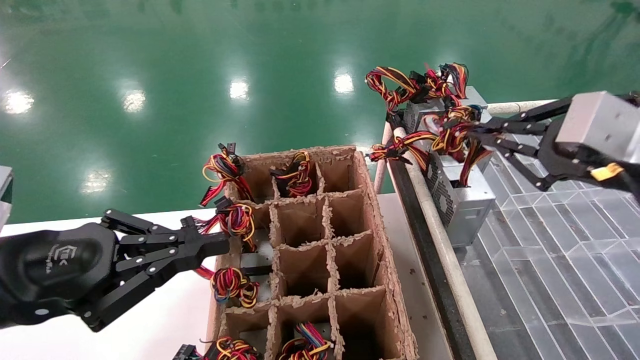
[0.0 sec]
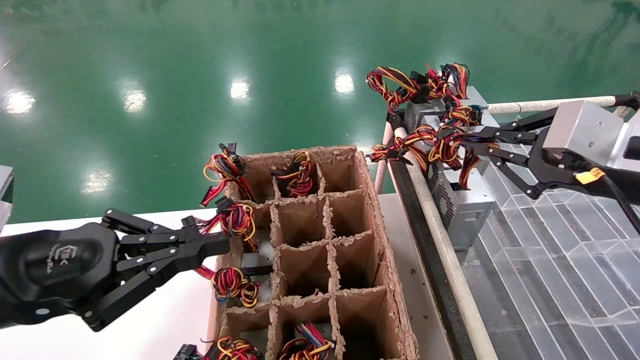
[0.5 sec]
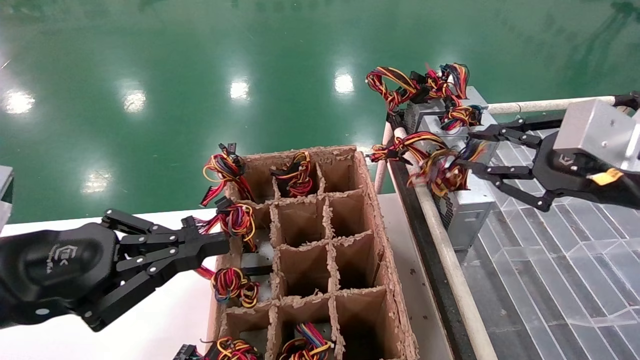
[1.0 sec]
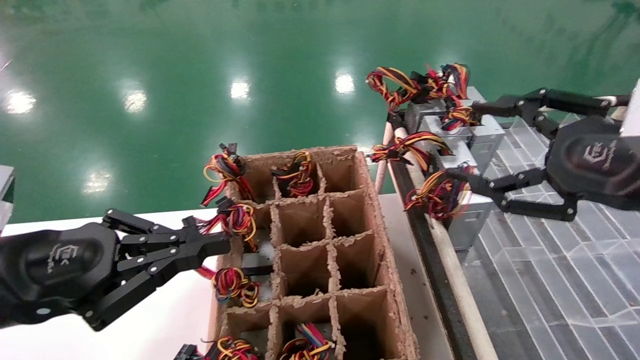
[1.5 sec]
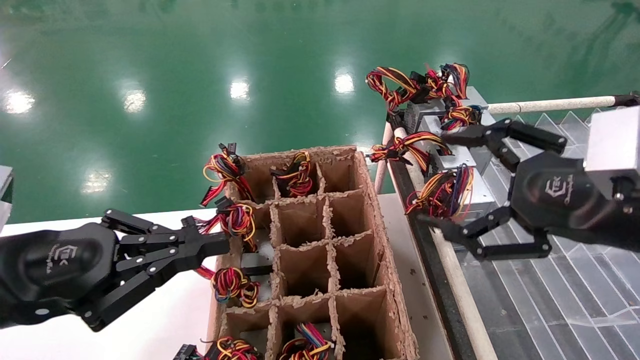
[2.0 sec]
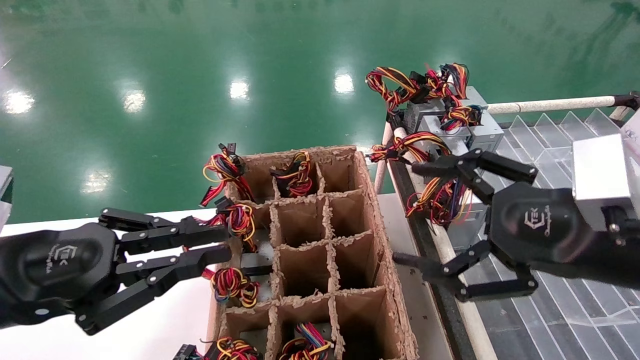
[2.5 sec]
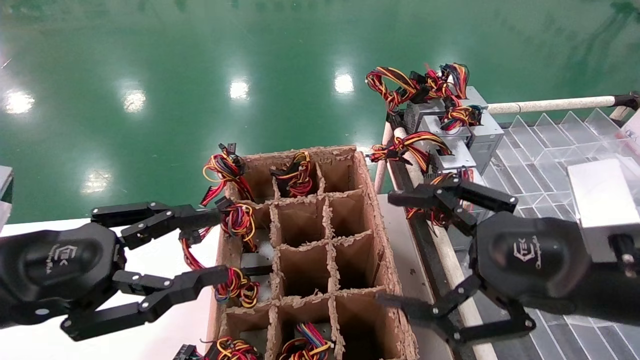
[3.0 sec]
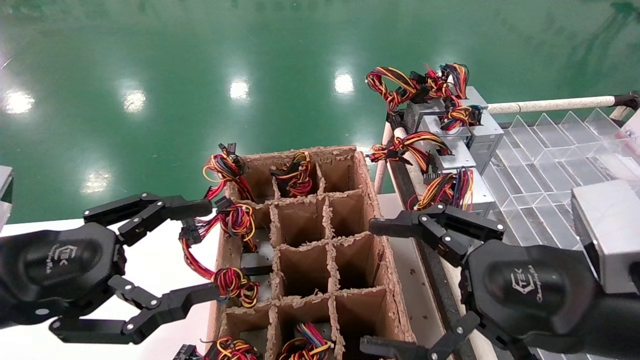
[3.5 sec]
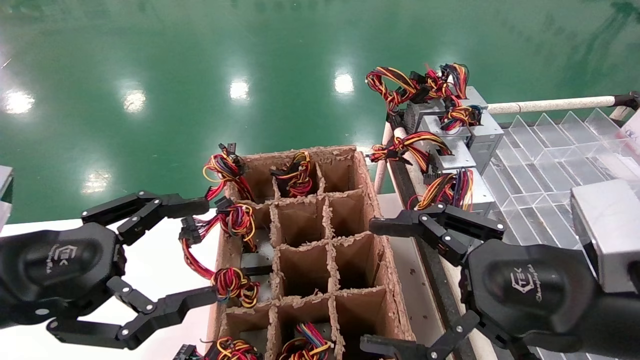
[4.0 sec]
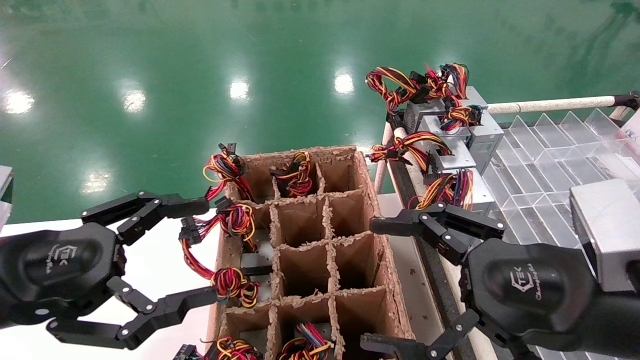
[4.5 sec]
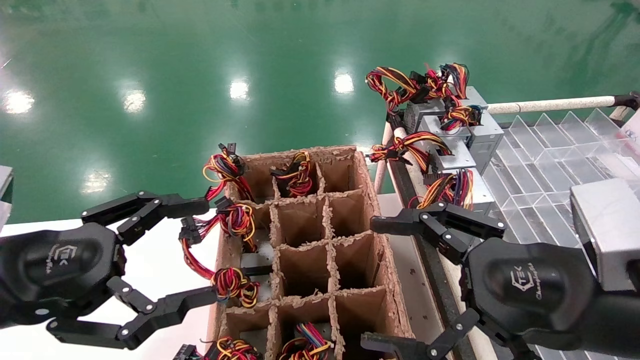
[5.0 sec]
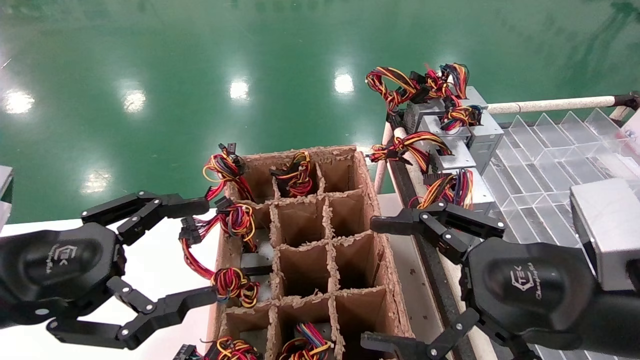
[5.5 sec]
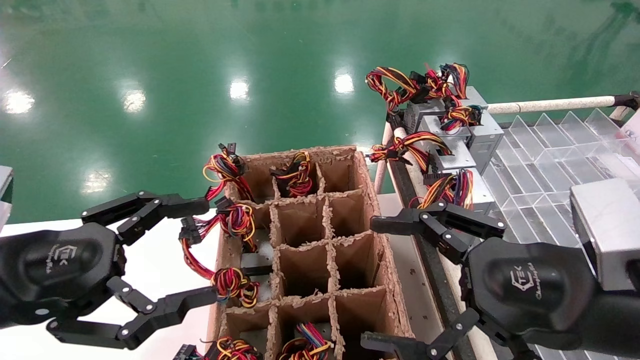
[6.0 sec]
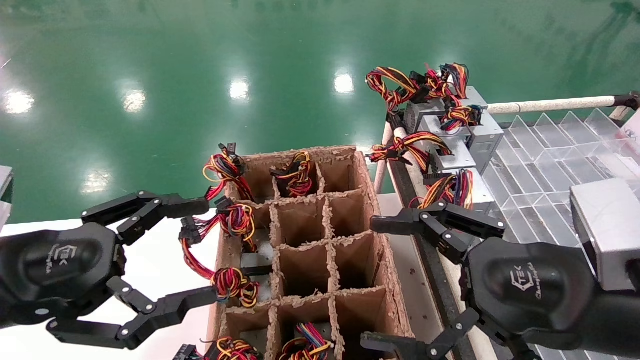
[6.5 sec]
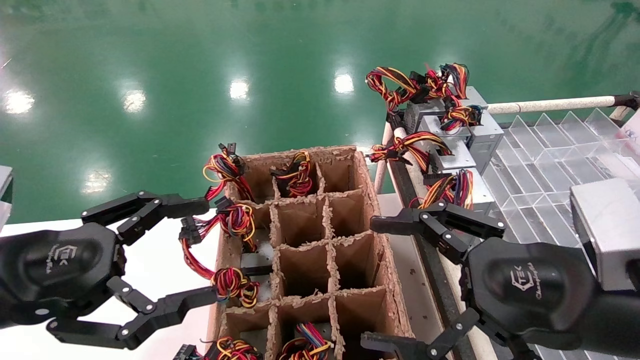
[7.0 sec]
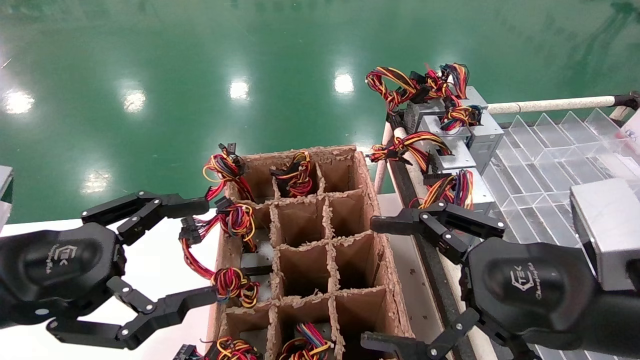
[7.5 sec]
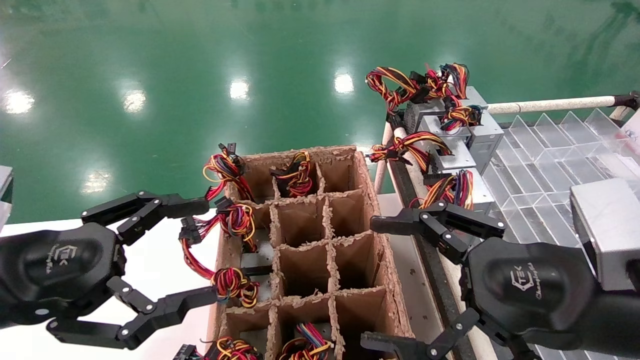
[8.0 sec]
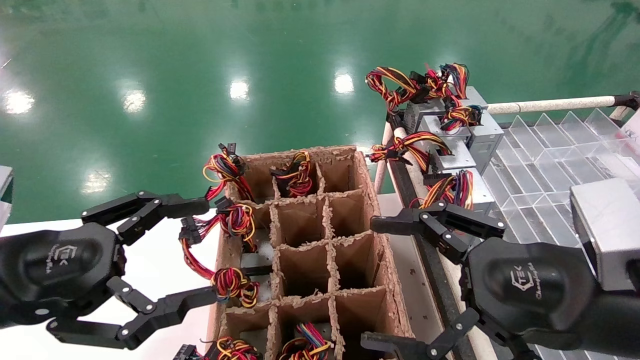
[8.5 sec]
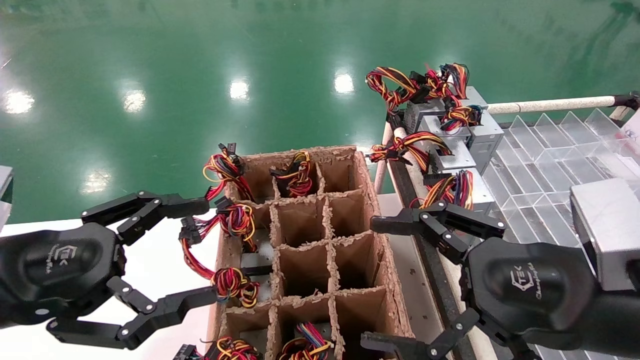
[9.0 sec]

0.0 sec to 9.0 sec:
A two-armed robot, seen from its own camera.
0.0 sec to 2.0 sec: The right gripper changes place by approximately 5 cm, and opens up.
2.0 sec to 4.5 sec: The right gripper moves downward, about 5 cm; the left gripper opens up.
4.5 sec to 9.0 sec: Neither gripper changes place.

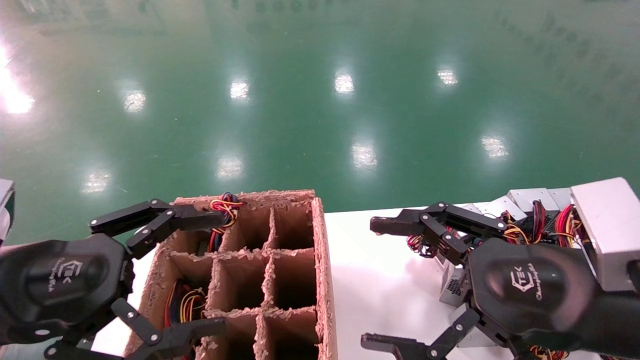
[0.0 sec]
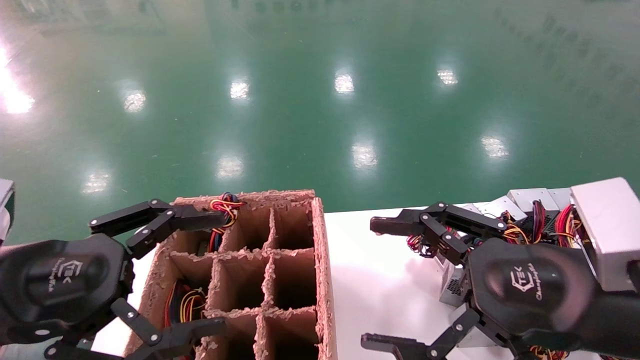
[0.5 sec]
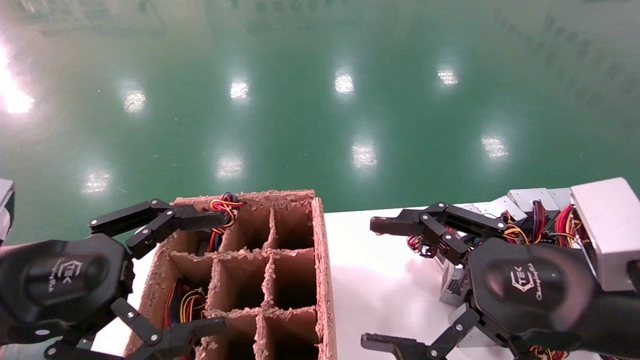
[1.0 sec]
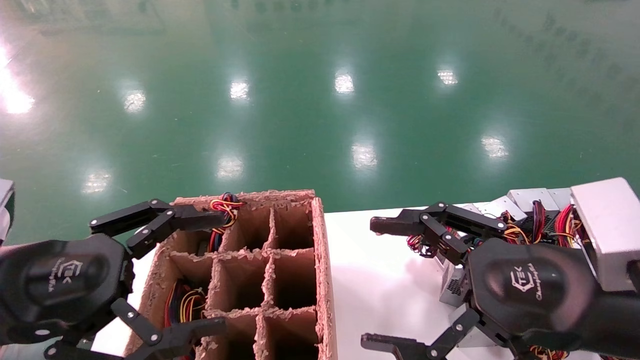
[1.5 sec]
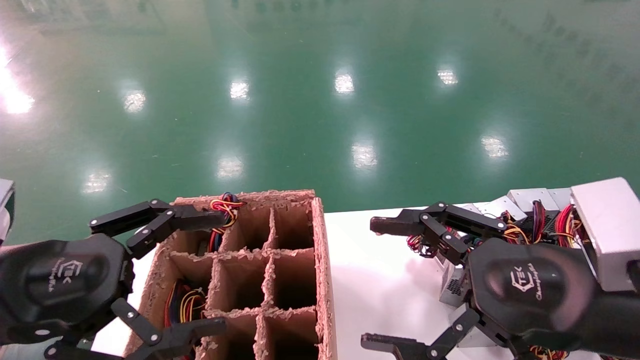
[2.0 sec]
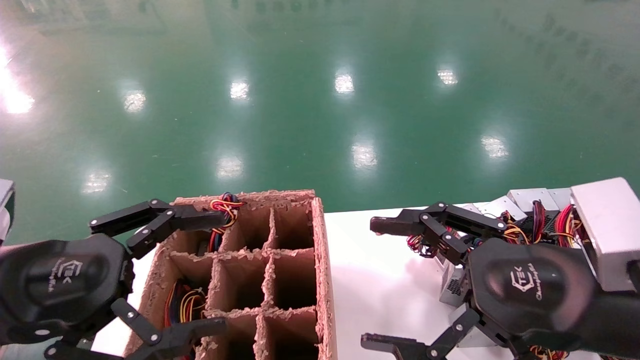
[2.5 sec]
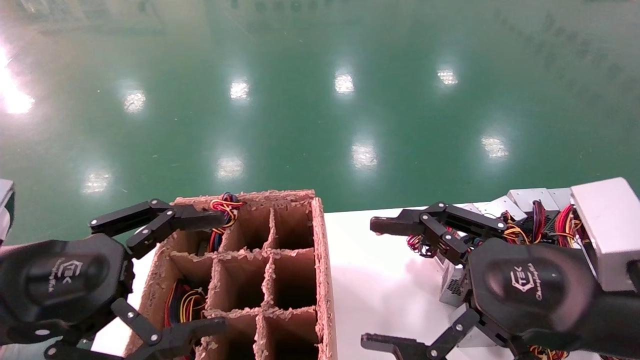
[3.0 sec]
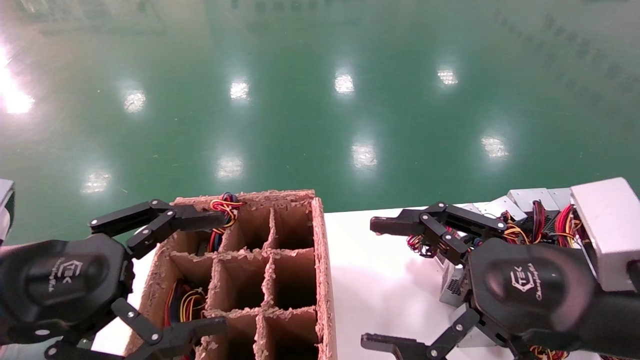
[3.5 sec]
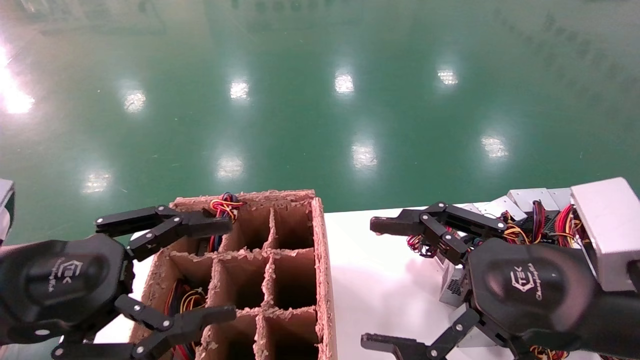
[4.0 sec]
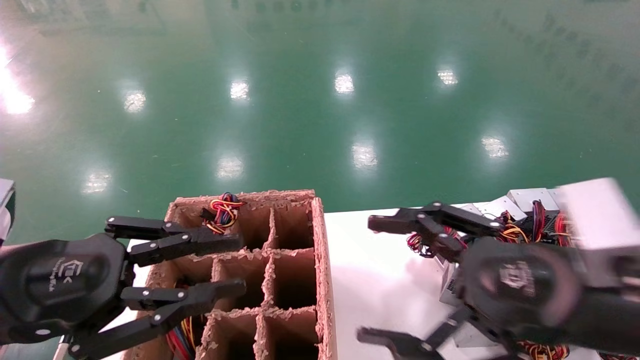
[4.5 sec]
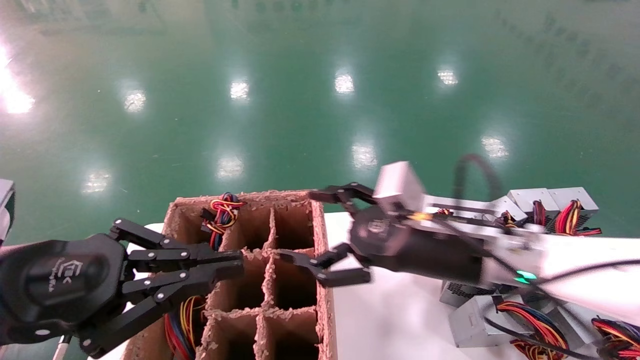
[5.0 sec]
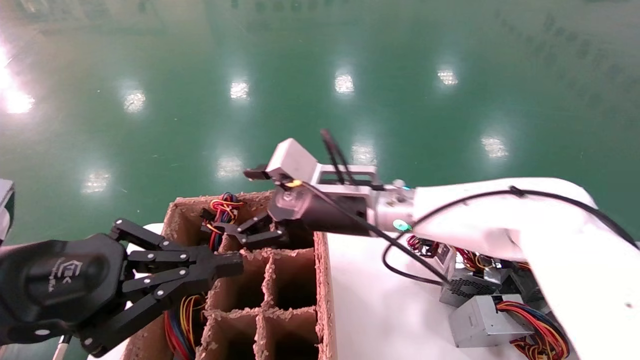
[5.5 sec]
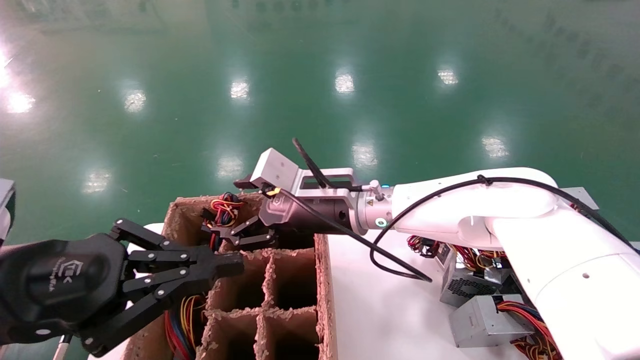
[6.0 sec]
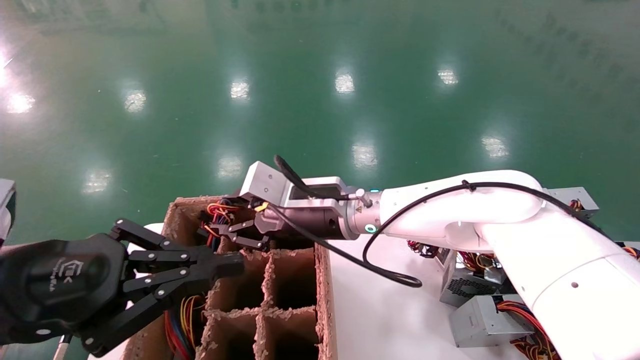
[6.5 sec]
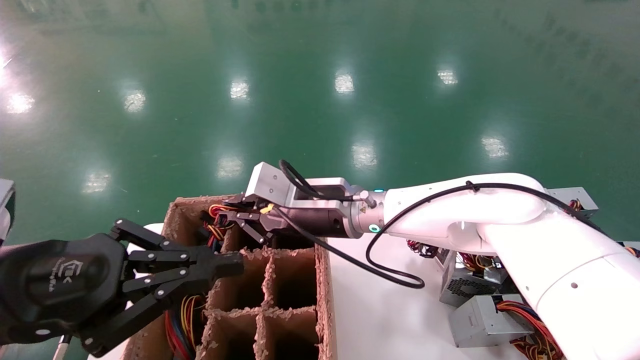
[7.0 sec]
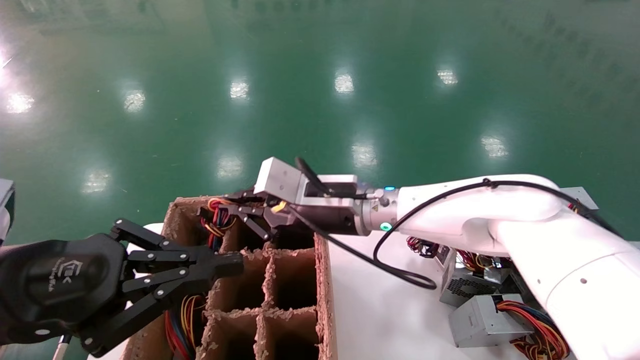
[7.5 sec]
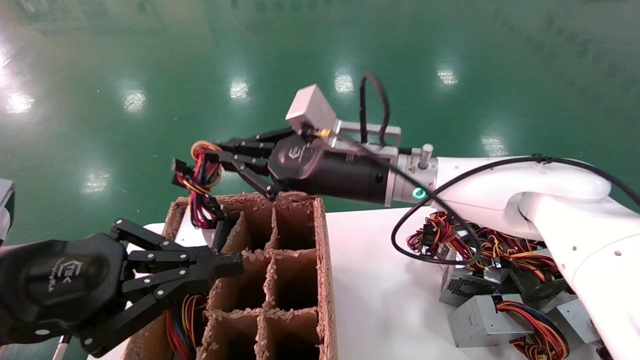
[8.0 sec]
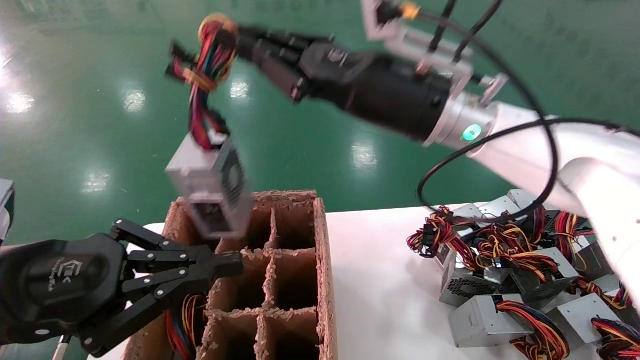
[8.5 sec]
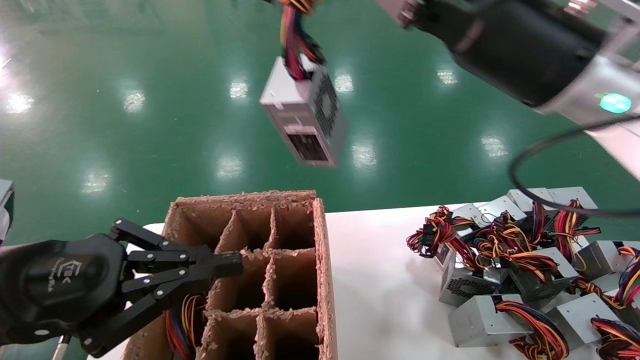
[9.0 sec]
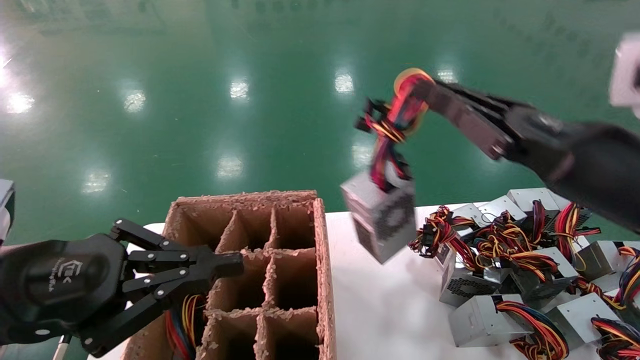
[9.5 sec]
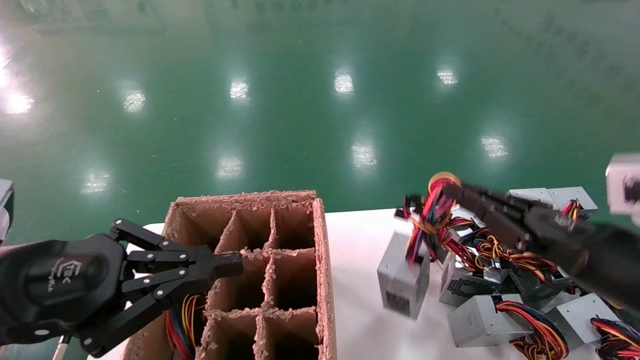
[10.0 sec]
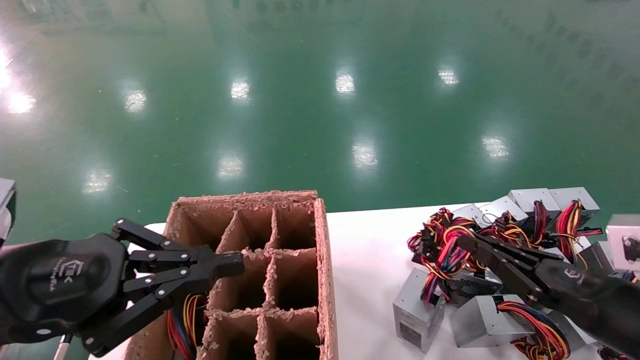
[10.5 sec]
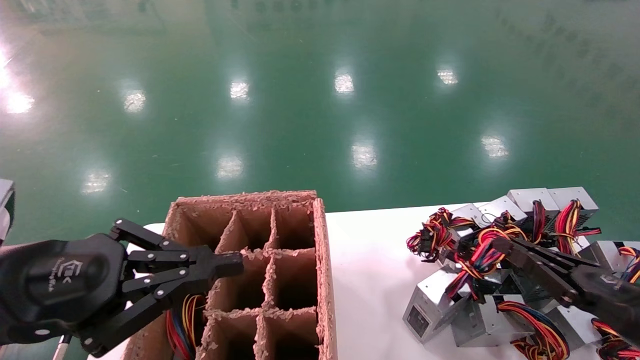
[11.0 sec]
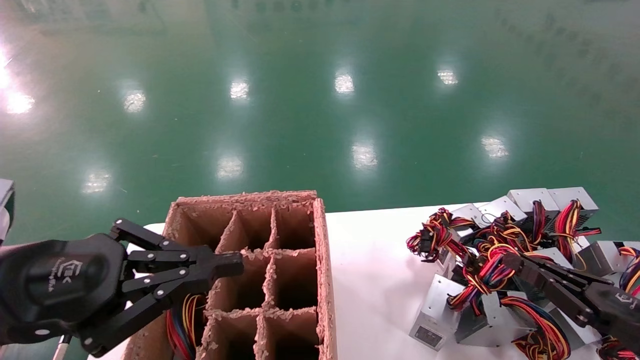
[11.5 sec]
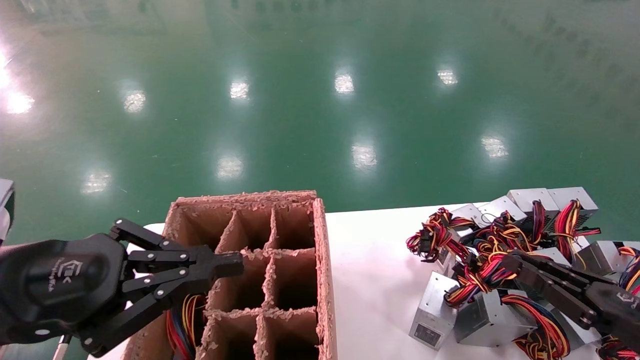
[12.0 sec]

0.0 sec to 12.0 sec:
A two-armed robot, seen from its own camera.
Step, 5.0 sec to 7.0 sec: Grab the main unit power supply from the containment box.
0.0 sec to 4.0 sec: Neither gripper changes place.
4.0 sec to 6.0 sec: The left gripper closes. The right gripper heads forward and to the left, covering about 30 cm.
6.0 sec to 8.0 sec: The right gripper moves upward, about 5 cm, and closes up.
8.0 sec to 10.0 sec: The right gripper shifts approximately 30 cm to the right and backward.
10.0 sec to 12.0 sec: The right gripper shifts roughly 10 cm downward and to the right.
